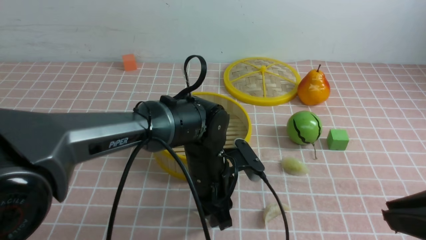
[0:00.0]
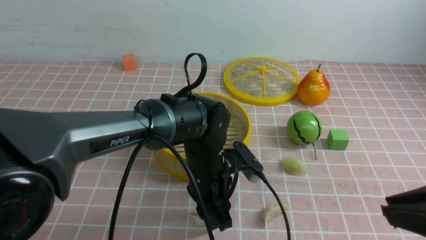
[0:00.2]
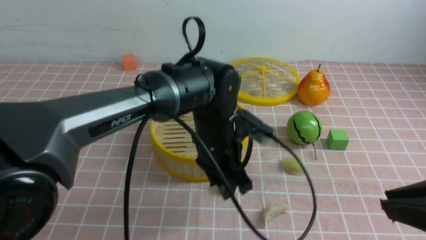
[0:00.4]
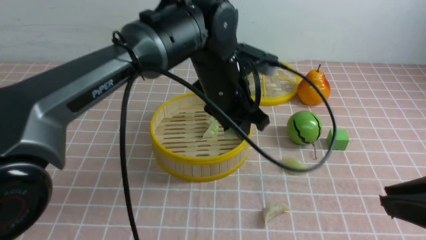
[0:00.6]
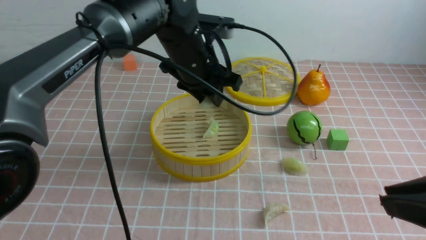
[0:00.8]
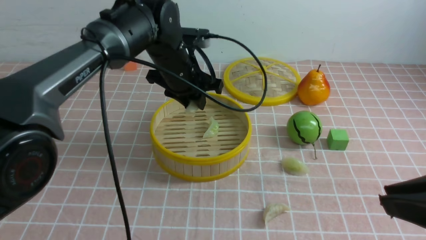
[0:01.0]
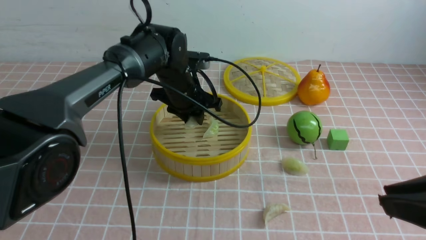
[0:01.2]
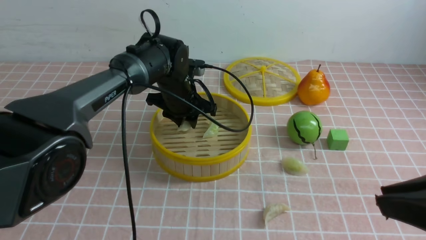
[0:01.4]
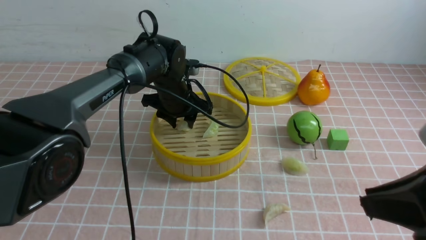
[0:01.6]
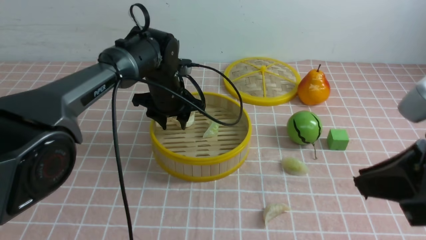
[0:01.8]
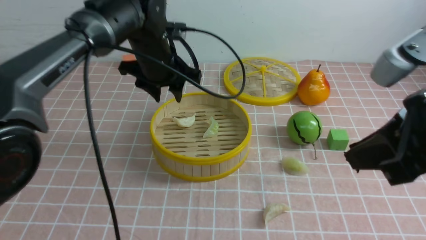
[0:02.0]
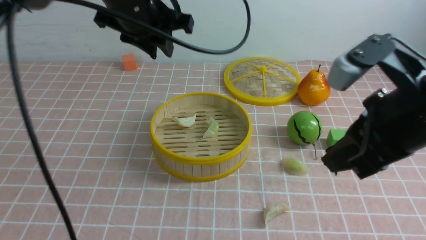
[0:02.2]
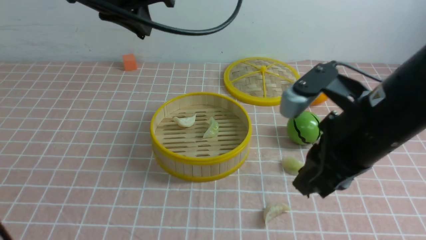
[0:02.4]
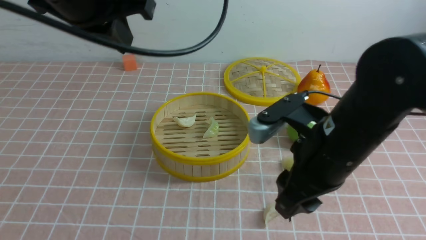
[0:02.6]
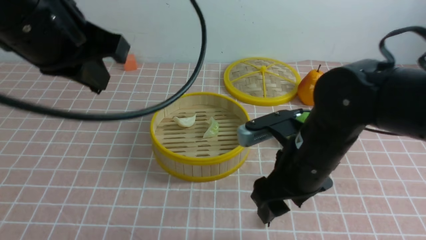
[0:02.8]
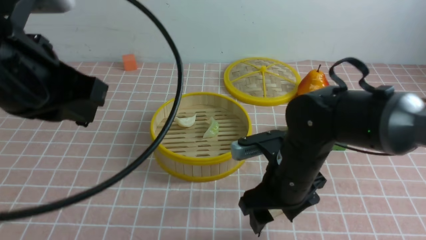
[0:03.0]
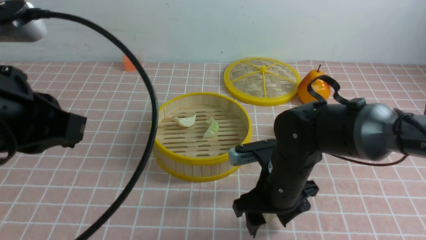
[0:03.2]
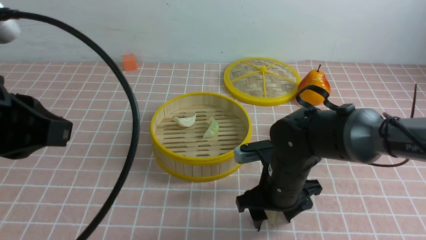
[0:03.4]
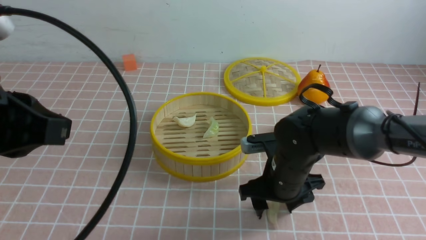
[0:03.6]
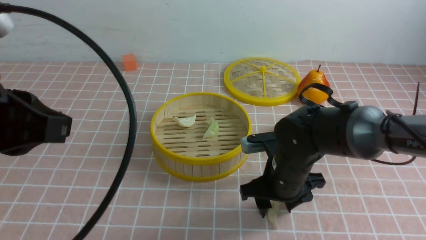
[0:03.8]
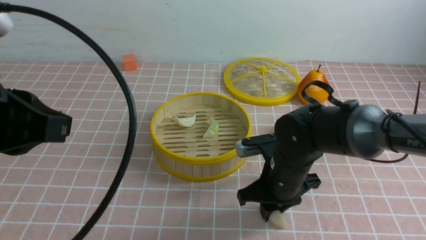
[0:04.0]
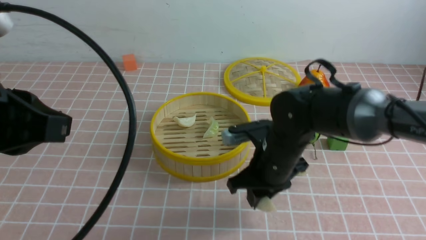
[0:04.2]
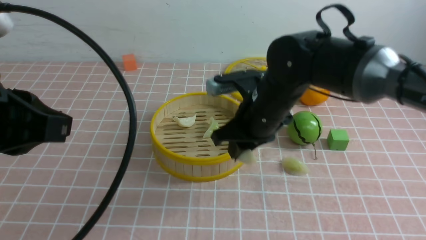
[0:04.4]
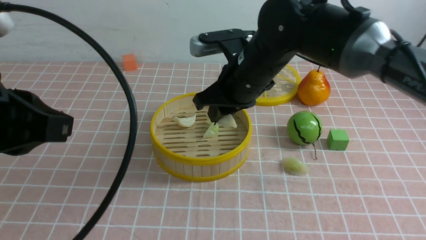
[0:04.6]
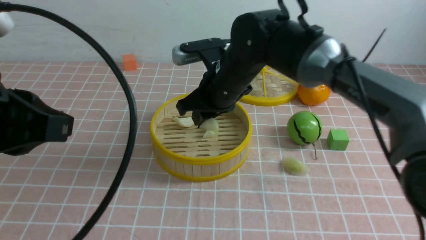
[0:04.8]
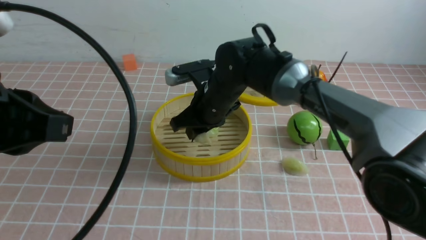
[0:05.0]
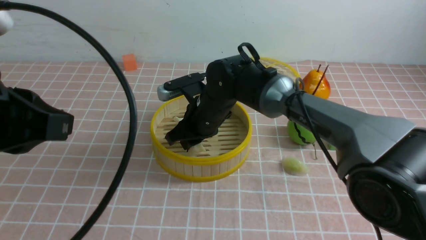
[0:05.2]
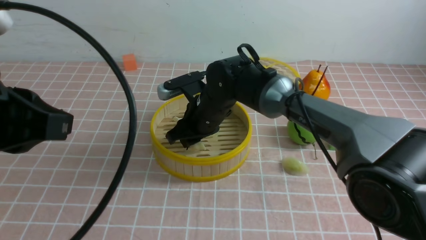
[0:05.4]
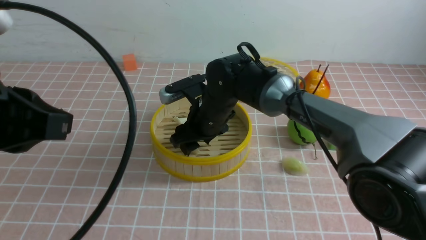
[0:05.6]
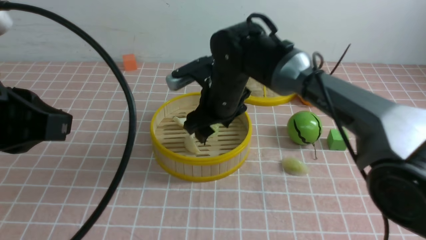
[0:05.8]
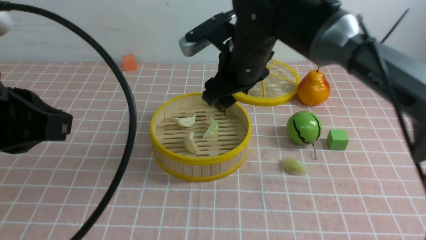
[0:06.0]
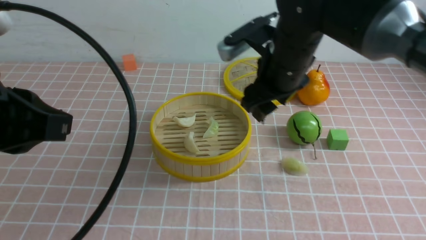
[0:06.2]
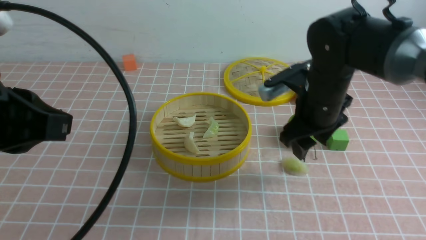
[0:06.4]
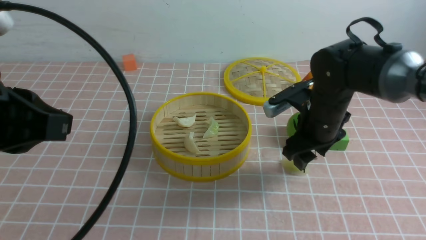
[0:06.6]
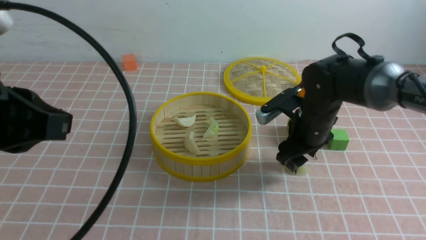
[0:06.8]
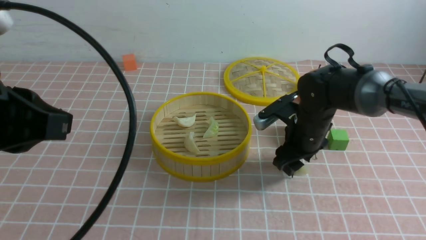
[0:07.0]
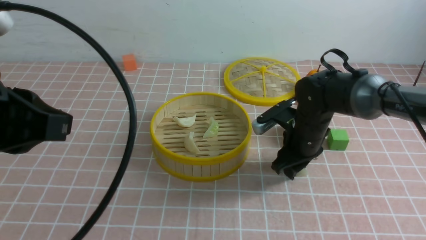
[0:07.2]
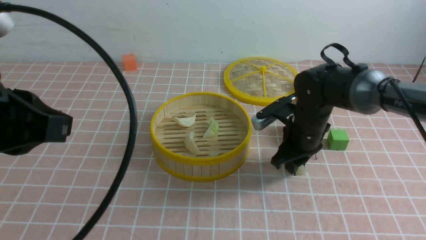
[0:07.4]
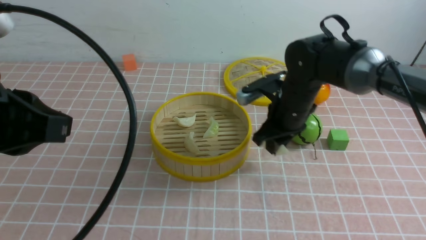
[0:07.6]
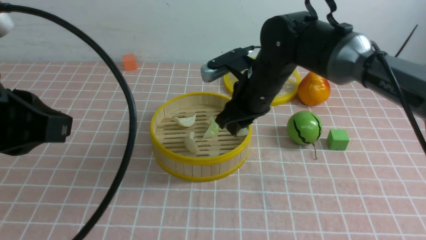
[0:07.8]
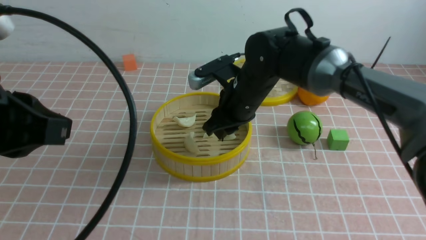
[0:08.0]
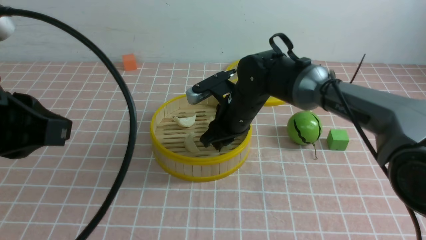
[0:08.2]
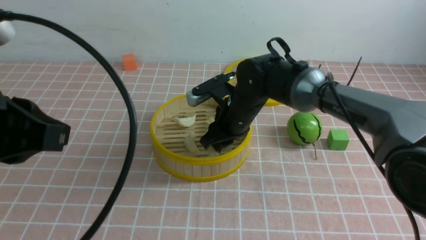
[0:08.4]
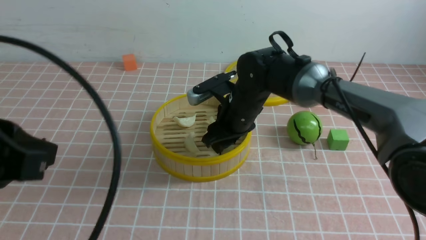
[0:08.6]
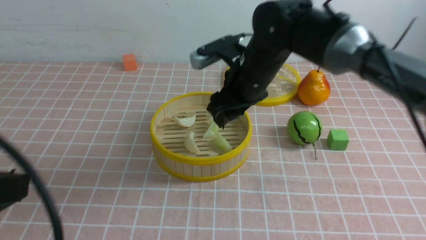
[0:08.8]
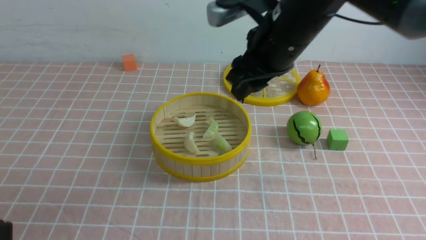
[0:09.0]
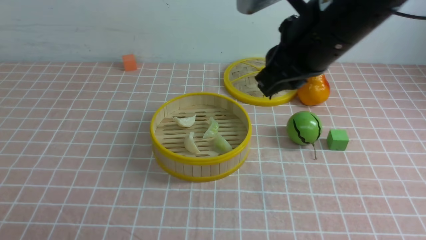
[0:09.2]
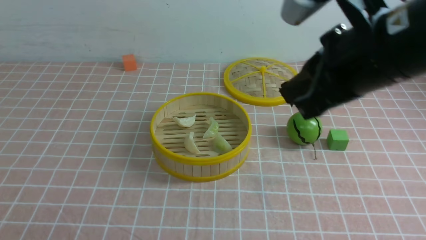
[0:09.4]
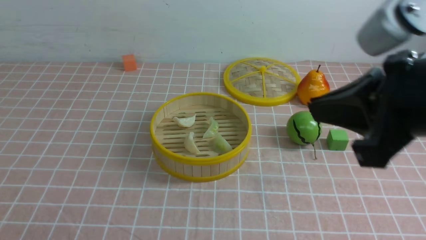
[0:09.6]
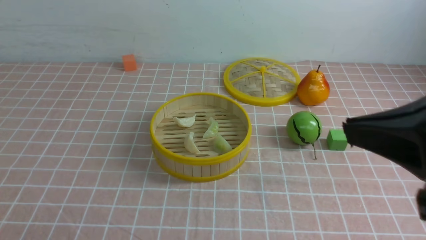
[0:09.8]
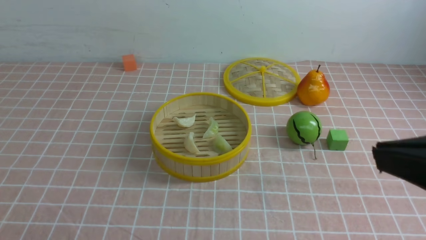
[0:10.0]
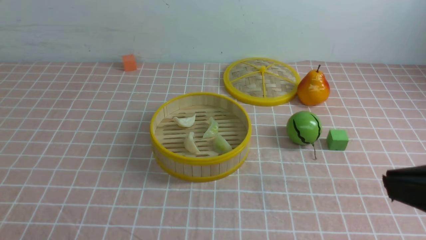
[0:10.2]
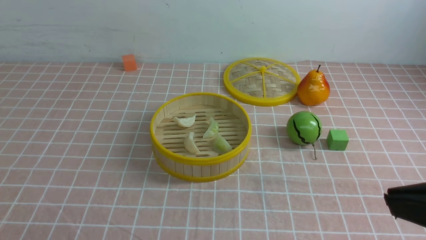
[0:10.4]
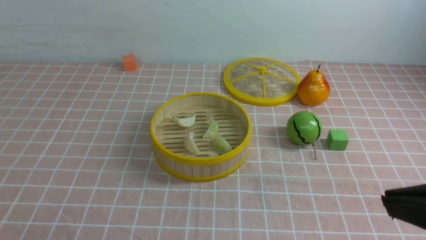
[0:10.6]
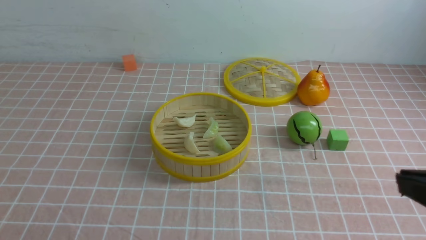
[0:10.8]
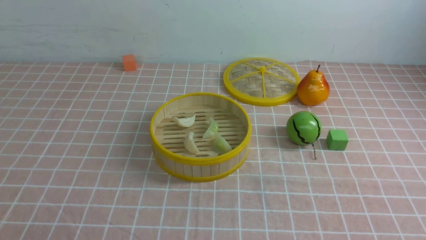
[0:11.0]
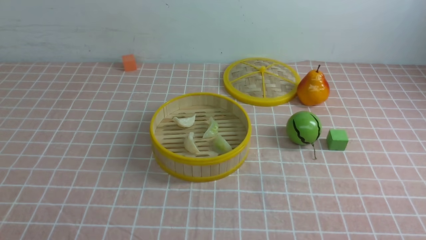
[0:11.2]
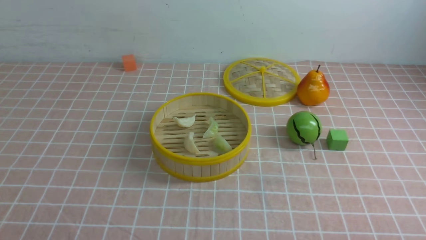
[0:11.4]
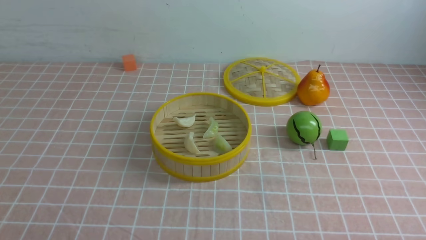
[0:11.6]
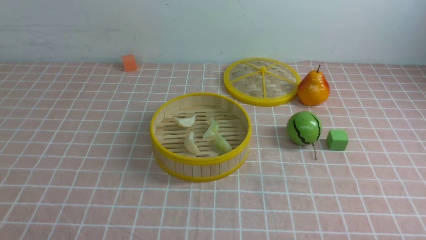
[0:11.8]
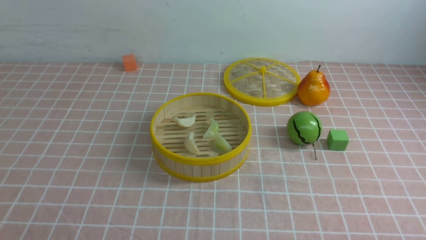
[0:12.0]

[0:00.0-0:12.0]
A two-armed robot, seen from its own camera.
Task of the whole recording: put the dumplings into the steamer on the table with the pink tablecloth.
Step, 0:00.4 to 0:02.0: use the left arm to put the dumpling into the steamer.
Step, 0:02.2 to 0:04.0: use the right arm to grab a dumpling.
Step, 0:04.4 to 0:05.8: use the right arm to put the dumpling into the steamer.
Step, 0:06.0 to 0:07.6: use the right arm to grab a dumpling.
Step, 0:07.8 to 0:08.8: use the right arm to put the dumpling into the steamer.
0:00.0 to 0:01.6: The left gripper travels forward and to the left by approximately 15 cm.
0:01.6 to 0:03.0: The right gripper goes some 25 cm forward, to the left and downward, and opens its fingers. The left gripper travels backward, upward and to the left by some 35 cm, and closes up.
0:03.0 to 0:04.4: The right gripper shifts some 5 cm forward, and closes up. Meanwhile the left gripper travels backward by some 5 cm.
0:04.4 to 0:06.0: The right gripper heads forward and upward, covering roughly 10 cm, and opens.
0:06.0 to 0:07.6: The right gripper heads to the right and downward, covering roughly 15 cm, and closes its fingers.
0:07.6 to 0:09.0: The right gripper goes up and down, about 15 cm each way, reversing 2 times. Meanwhile the left gripper travels backward by roughly 10 cm.
0:09.0 to 0:10.4: The right gripper heads backward and to the right, covering about 35 cm, and closes. Meanwhile the left gripper moves downward, about 5 cm.
0:10.4 to 0:12.0: The right gripper moves downward, some 20 cm.

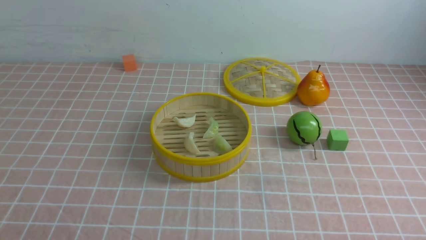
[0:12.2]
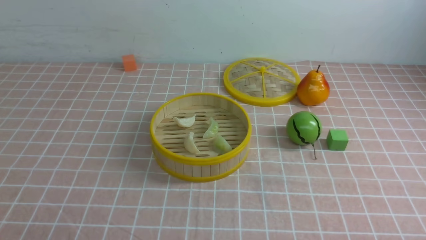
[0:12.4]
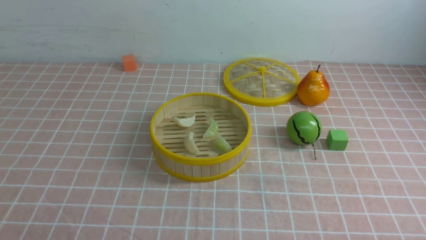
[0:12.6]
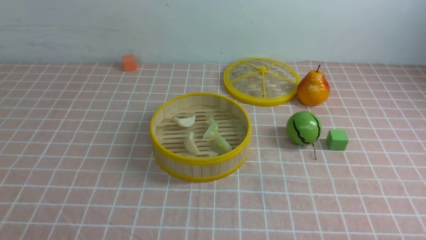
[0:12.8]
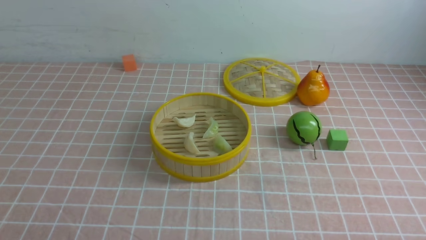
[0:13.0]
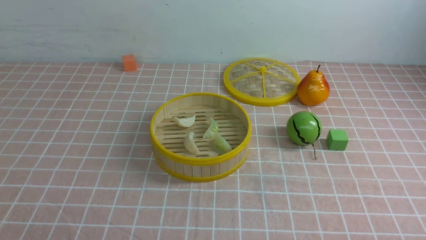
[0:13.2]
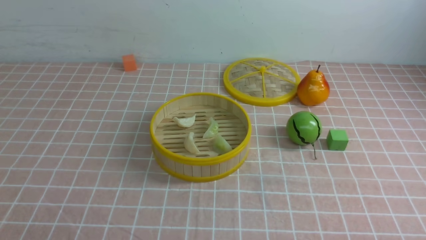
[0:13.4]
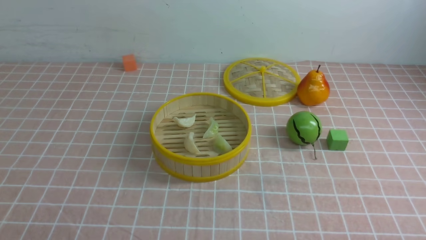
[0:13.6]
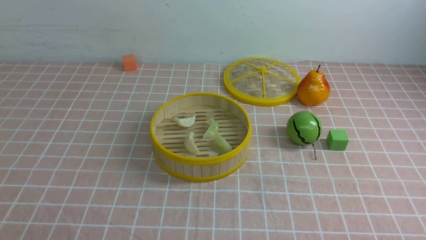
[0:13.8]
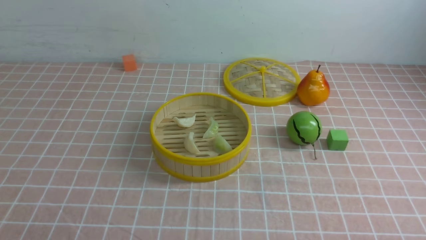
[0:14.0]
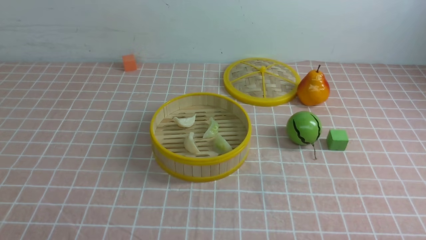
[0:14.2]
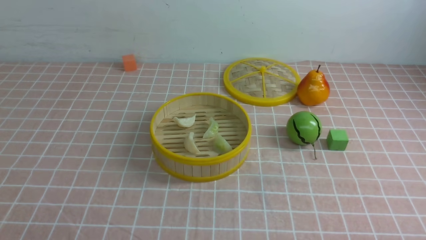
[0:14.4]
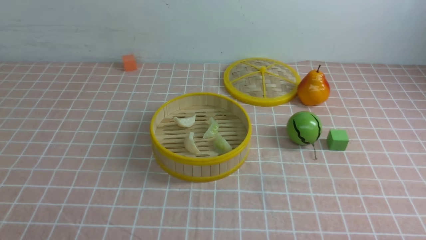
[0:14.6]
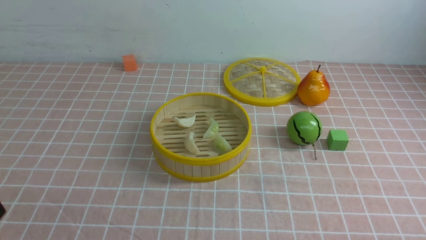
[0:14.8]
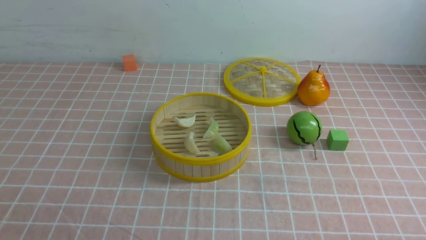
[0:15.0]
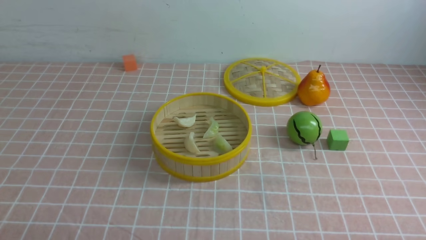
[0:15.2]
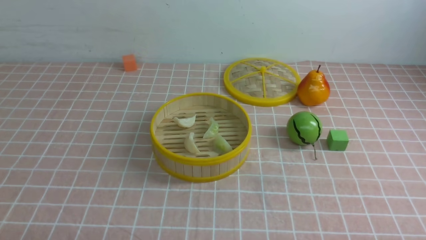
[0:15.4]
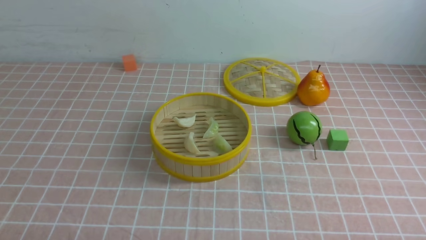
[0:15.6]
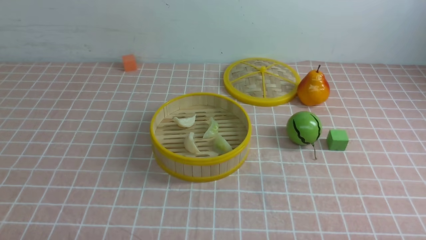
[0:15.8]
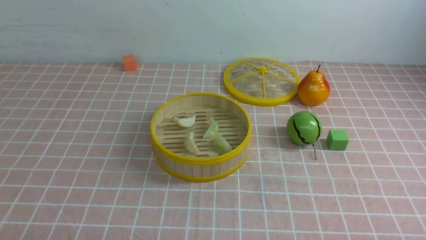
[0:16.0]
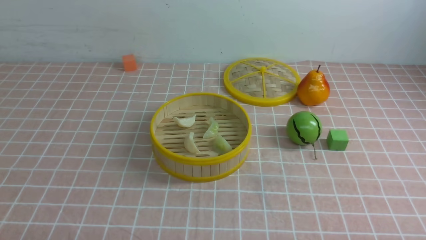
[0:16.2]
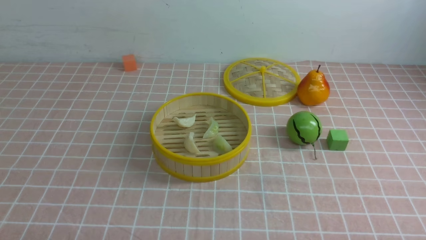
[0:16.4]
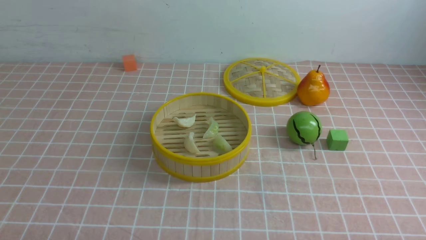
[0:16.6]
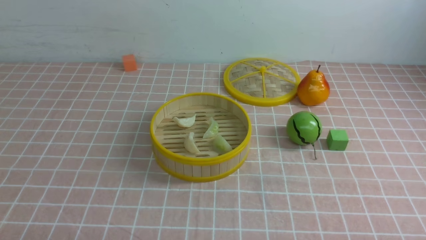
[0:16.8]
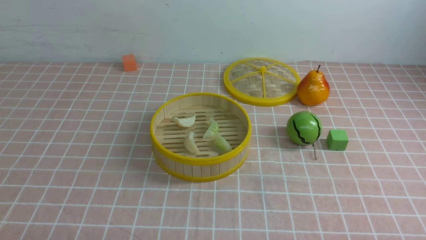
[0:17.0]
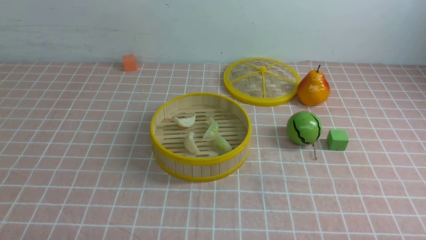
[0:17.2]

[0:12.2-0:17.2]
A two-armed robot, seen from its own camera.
Task of the whole recording: put the dumplings into the steamer on the table with the pink tablecloth.
0:12.2 to 0:13.8: The two grippers keep their place.
0:15.6 to 0:17.2: Neither gripper changes place.
